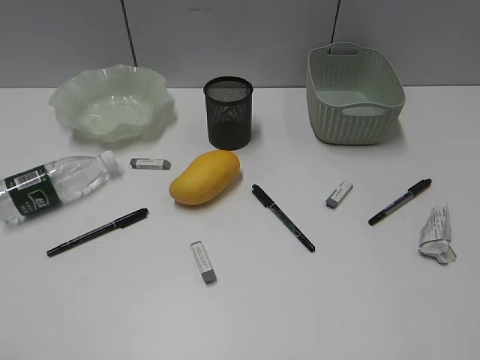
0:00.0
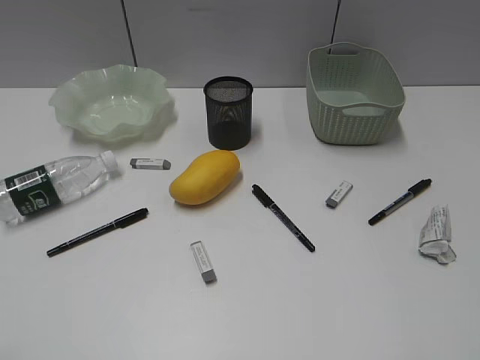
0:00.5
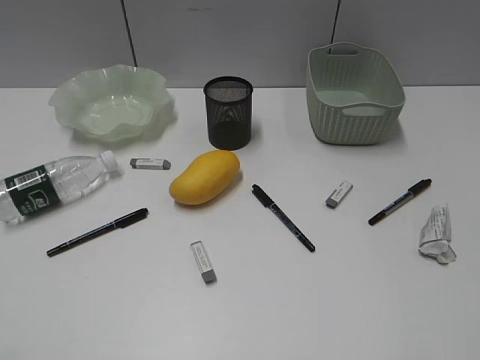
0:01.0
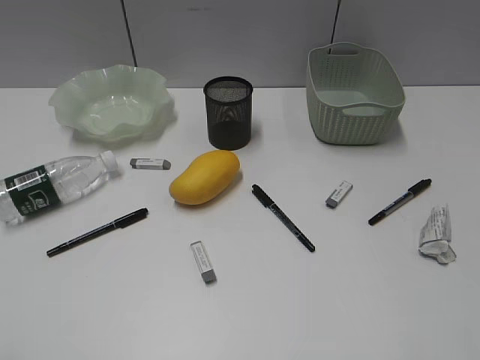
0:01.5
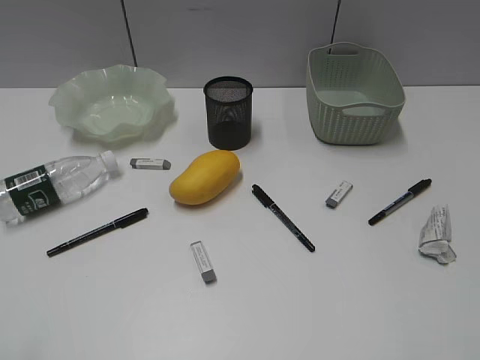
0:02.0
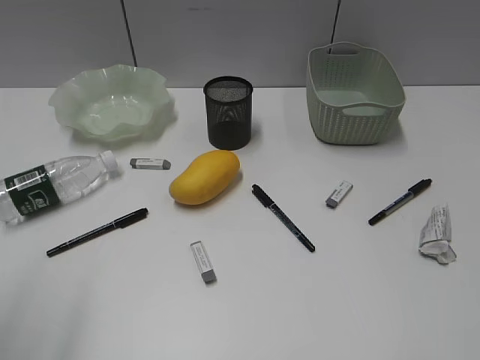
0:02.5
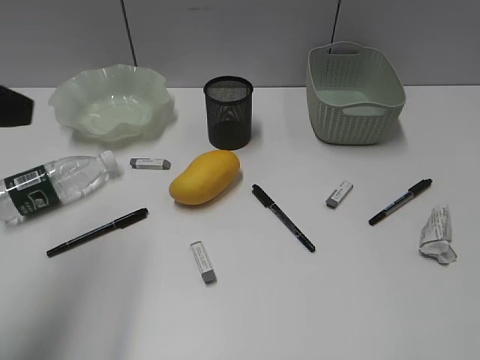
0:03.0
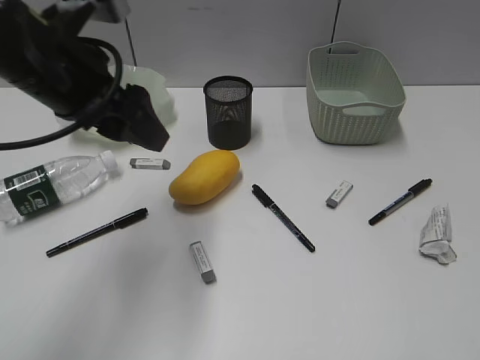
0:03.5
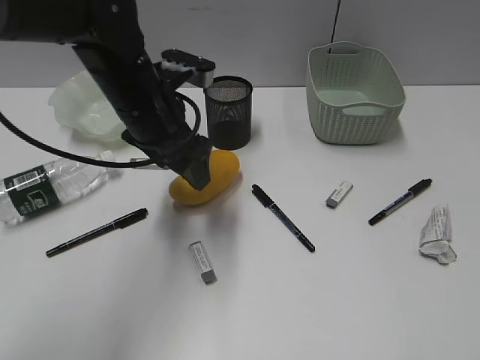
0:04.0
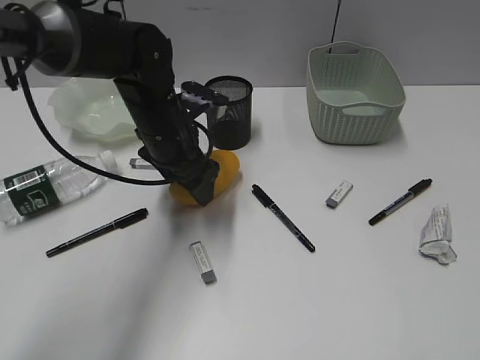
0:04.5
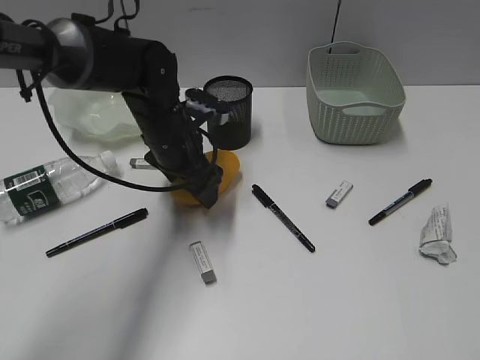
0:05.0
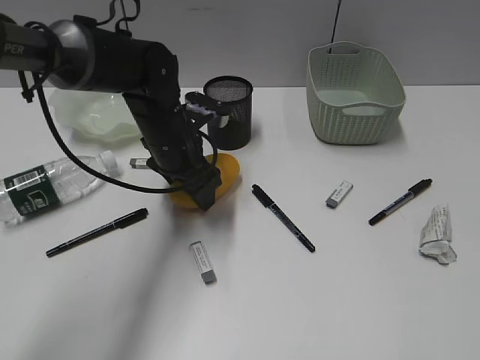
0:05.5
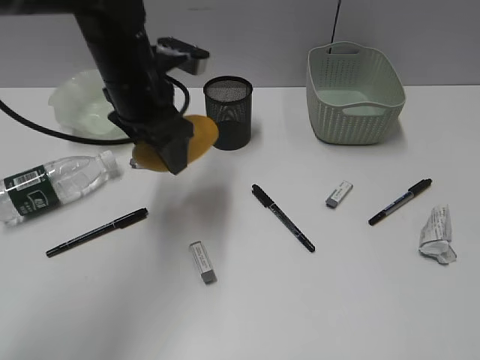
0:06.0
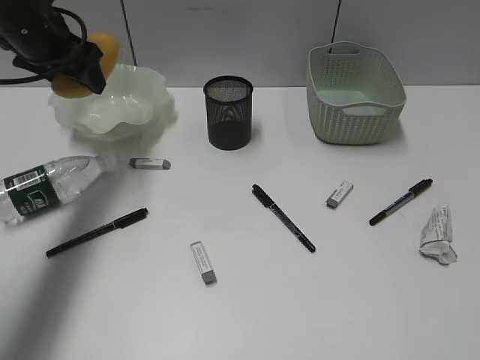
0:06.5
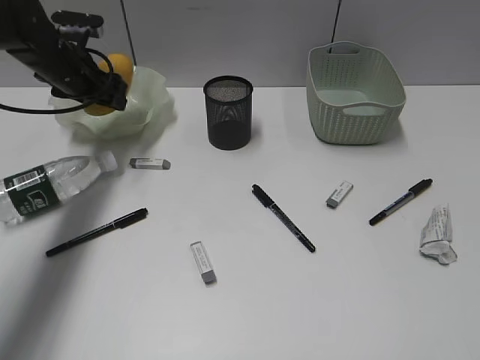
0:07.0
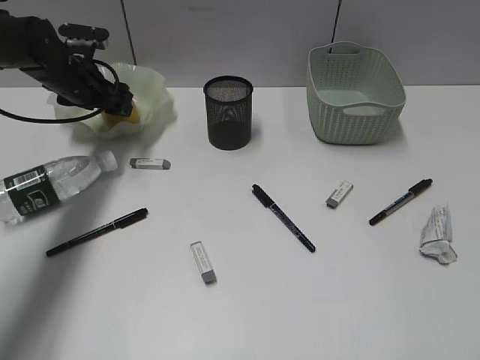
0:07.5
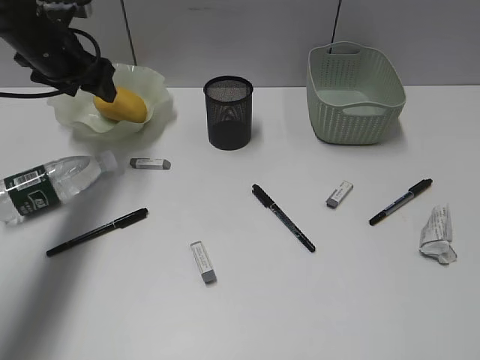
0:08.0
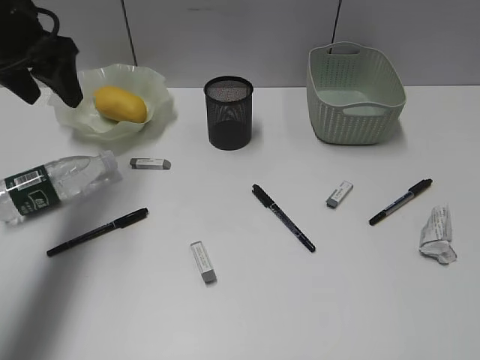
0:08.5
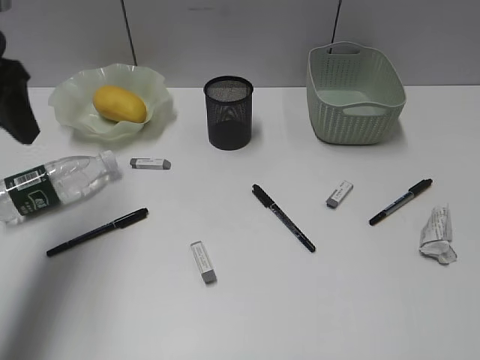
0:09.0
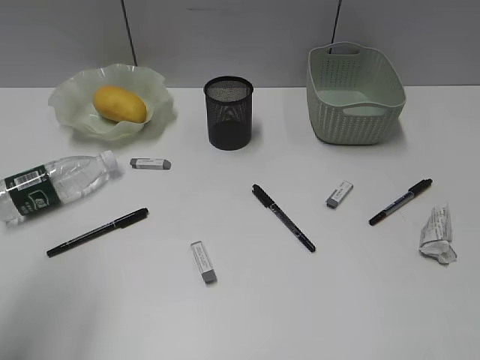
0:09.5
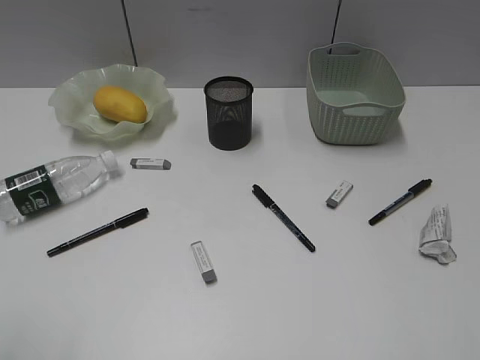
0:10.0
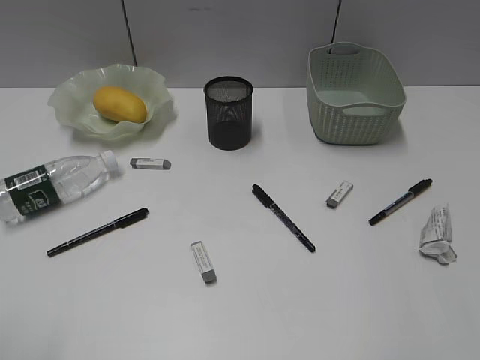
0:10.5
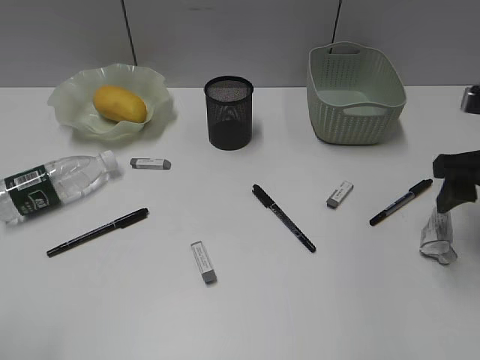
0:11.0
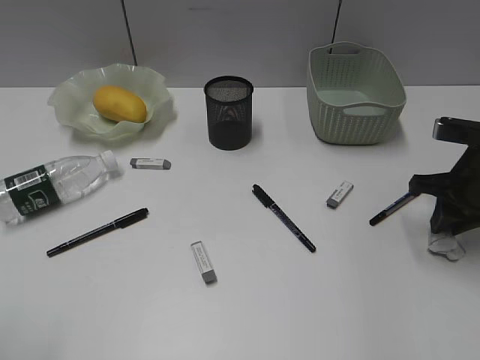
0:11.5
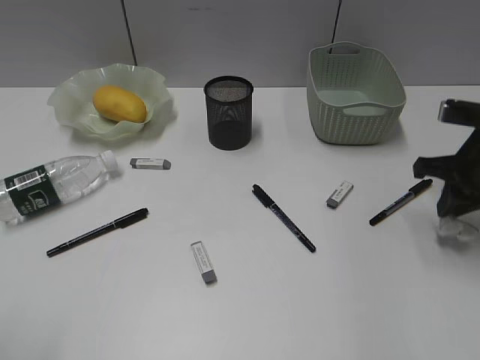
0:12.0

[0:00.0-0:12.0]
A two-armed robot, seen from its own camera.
Step, 0:03.0 to 0:05.0: Grasp the mango with left gripper.
Step, 0:05.5 to 0:08.0: Place the mango in the plate with left gripper.
Step, 0:08.5 to 0:11.5: Grasp the waste paper with right gripper.
0:02.0 to 0:04.0: The left gripper goes about 40 cm forward and to the right, and opens up.
0:04.0 to 0:06.0: The left gripper moves about 5 cm downward and comes back.
0:06.0 to 0:08.0: The left gripper shifts approximately 15 cm to the left and forward.
0:08.0 to 0:10.0: The left gripper travels backward by approximately 40 cm.
0:10.0 to 0:12.0: The right gripper heads forward and downward, covering some 35 cm, and closes.

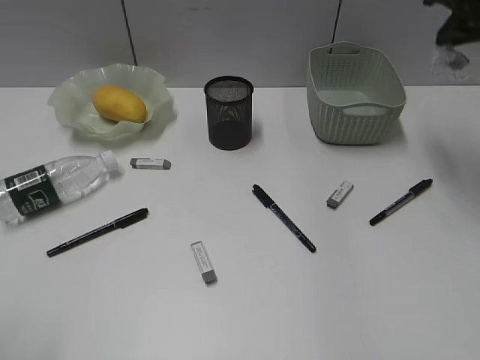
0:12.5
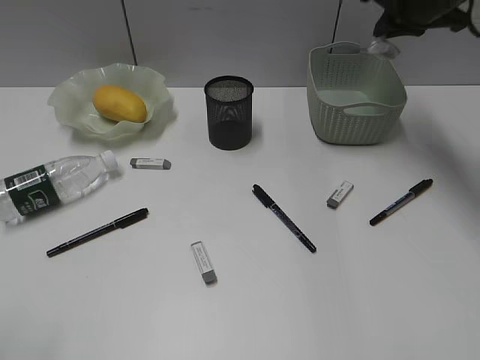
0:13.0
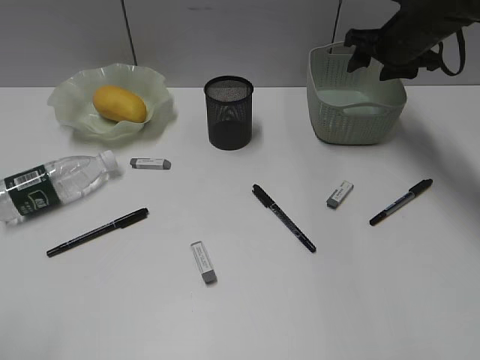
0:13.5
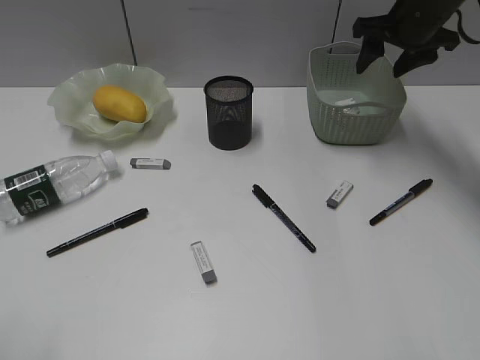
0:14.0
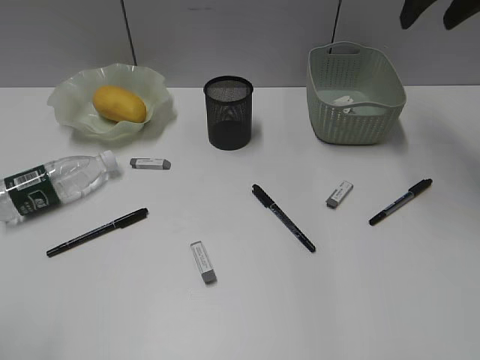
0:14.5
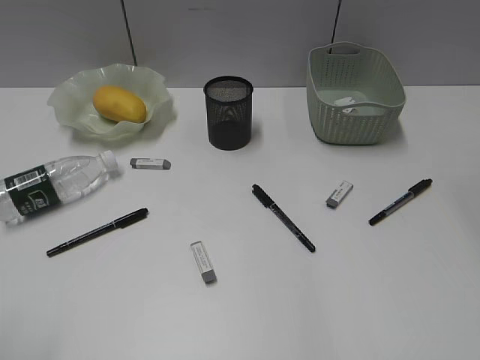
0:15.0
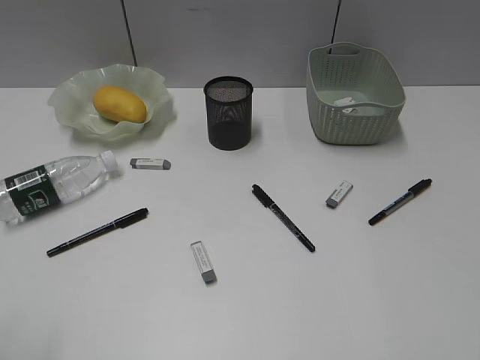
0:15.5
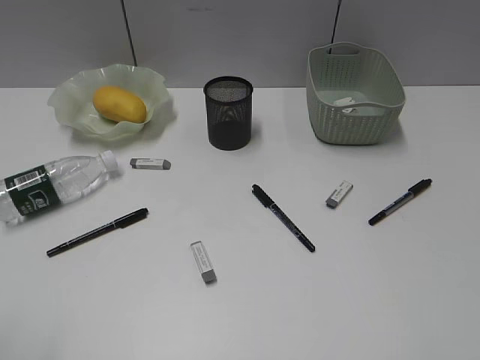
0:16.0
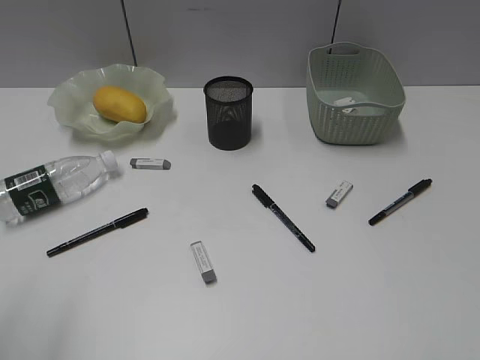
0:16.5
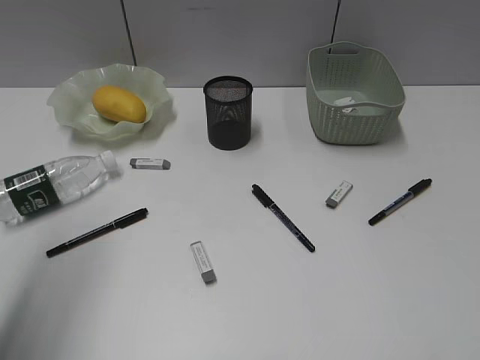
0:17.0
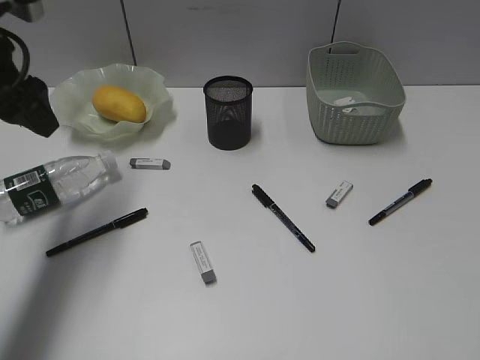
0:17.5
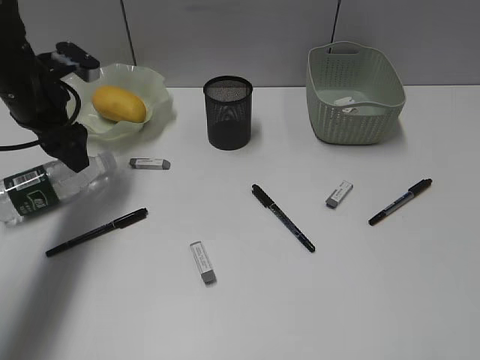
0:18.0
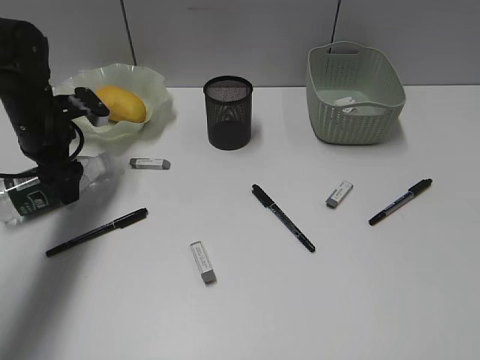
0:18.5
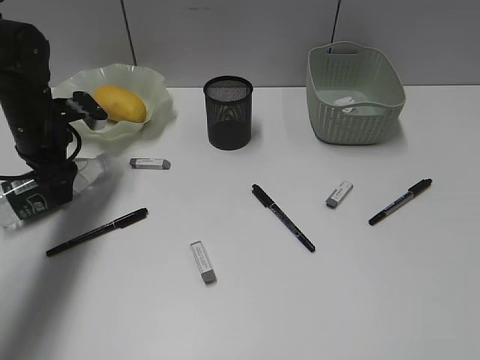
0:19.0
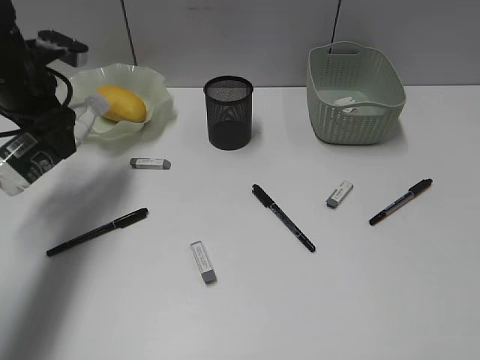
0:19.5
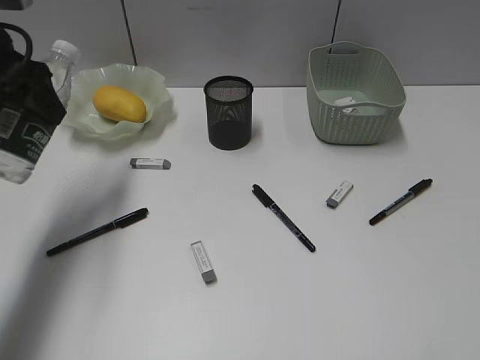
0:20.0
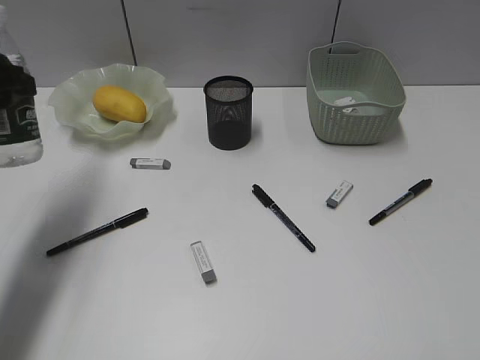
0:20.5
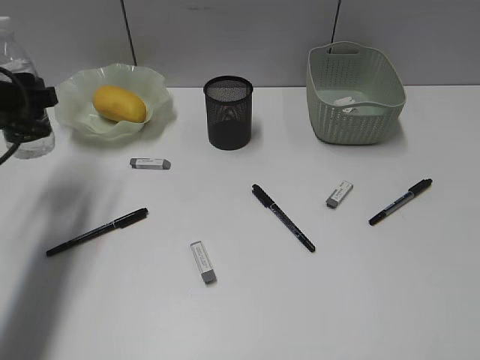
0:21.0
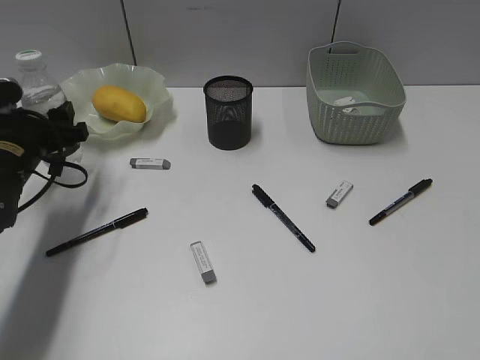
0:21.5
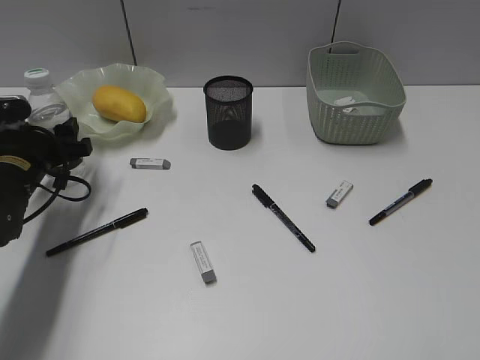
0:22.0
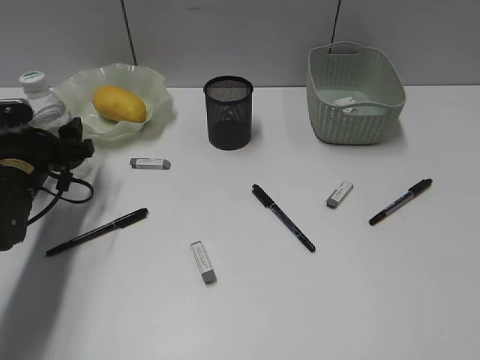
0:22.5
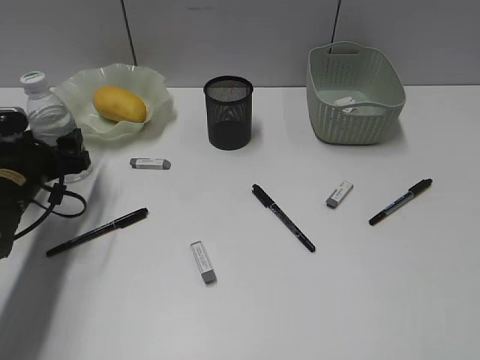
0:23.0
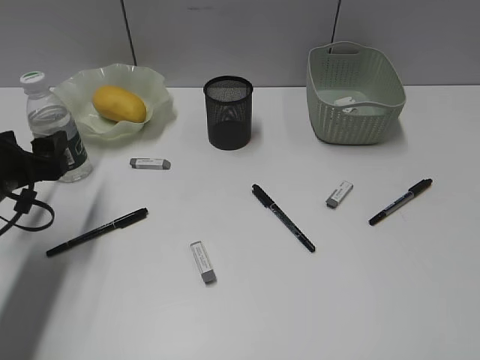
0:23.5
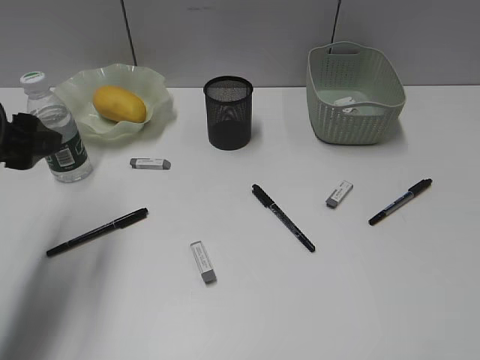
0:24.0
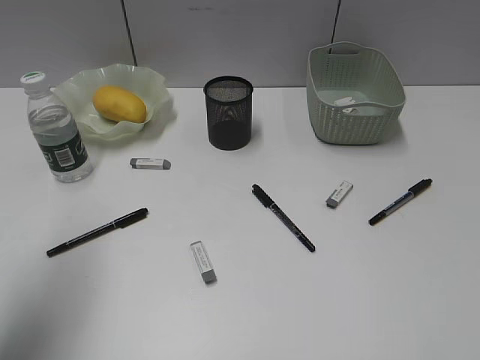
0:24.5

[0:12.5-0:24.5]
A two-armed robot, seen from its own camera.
Step, 0:12.5 to 0:13.5: Place the waste paper in the basket with right gripper.
Step, 0:12.5 to 0:18.5: Grasp the bottle with left gripper.
Step, 0:19.0 to 0:23.0: Stand the bottle with left gripper.
0:12.5 to 0:14.5: The right gripper reaches about 10 cm downward, then returns, and opens up.
0:14.5 to 0:16.5: The right gripper heads backward, covering approximately 40 cm.
0:16.5 to 0:18.5: The left gripper moves forward and downward, some 40 cm, and opens.
0:18.5 to 0:20.5: The left gripper travels backward and upward by some 15 cm.
0:20.5 to 0:22.5: The left gripper is displaced downward by about 15 cm.
0:22.5 to 0:24.5: The left gripper is displaced upward and backward by some 25 cm.

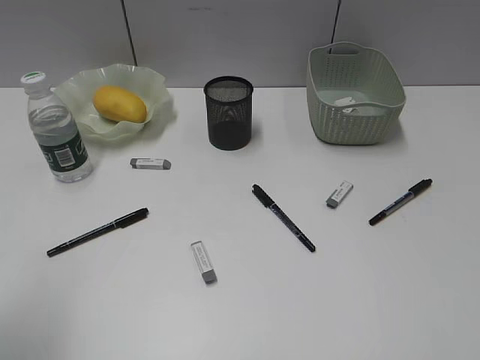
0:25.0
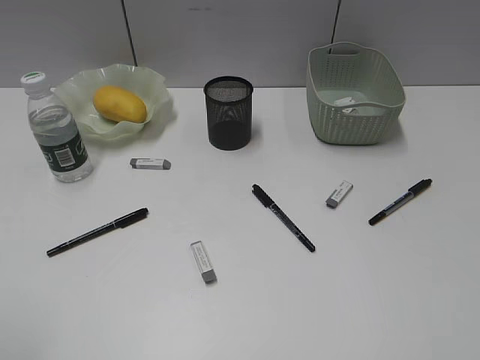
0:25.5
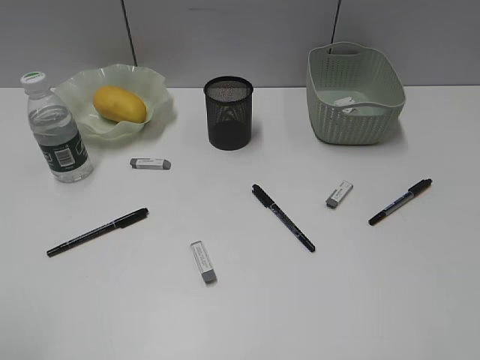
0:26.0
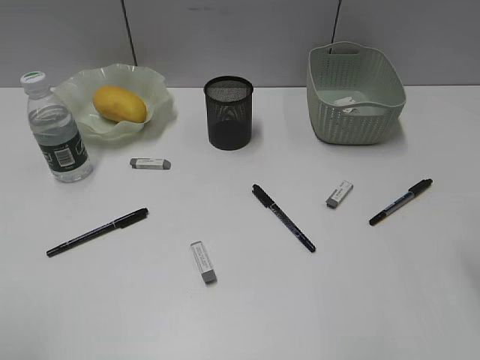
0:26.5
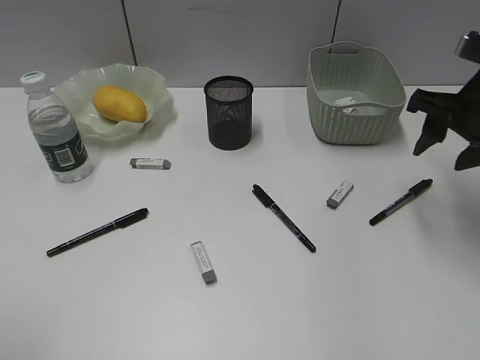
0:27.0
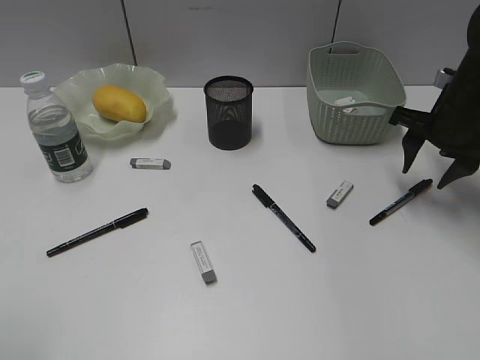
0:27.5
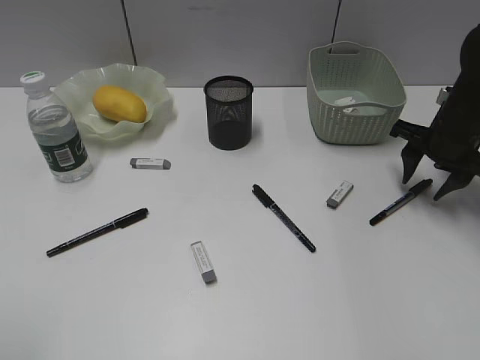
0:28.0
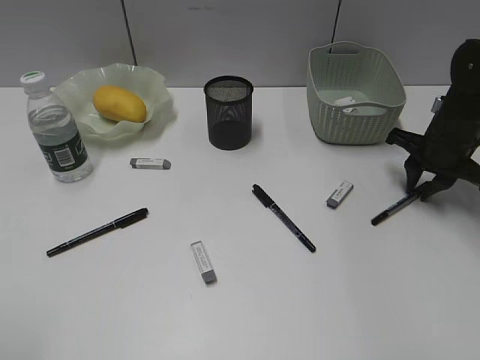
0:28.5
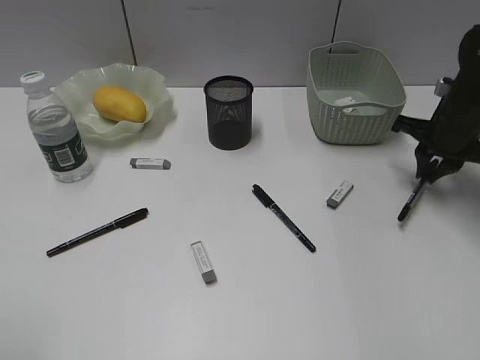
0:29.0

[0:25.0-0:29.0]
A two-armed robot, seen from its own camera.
Step, 0:25.0 to 0:28.5: Grasp the black pen with right gripper.
0:25.0 to 0:27.0: The right gripper shifts roughly 30 cm forward.
0:27.0 to 0:29.0: The right gripper is displaced downward and forward by about 10 cm, and closes up.
